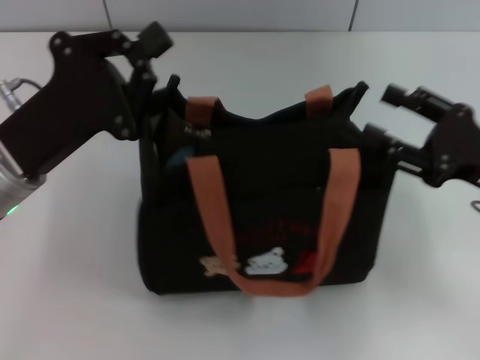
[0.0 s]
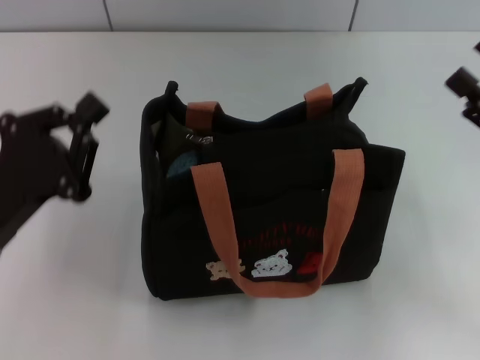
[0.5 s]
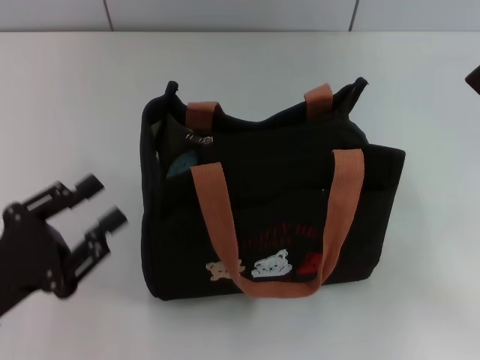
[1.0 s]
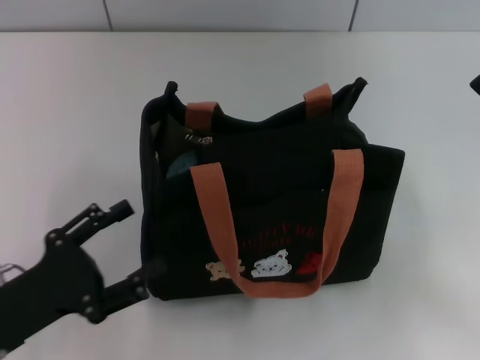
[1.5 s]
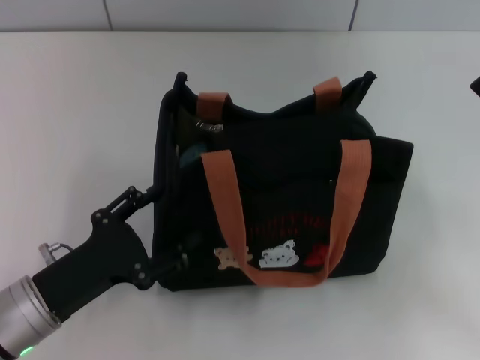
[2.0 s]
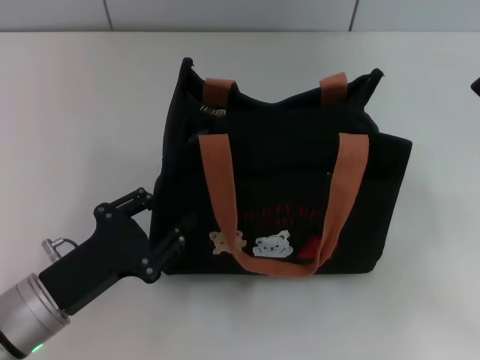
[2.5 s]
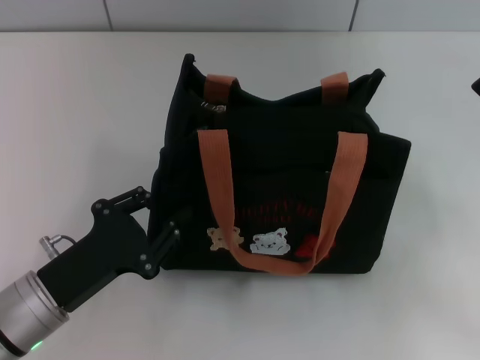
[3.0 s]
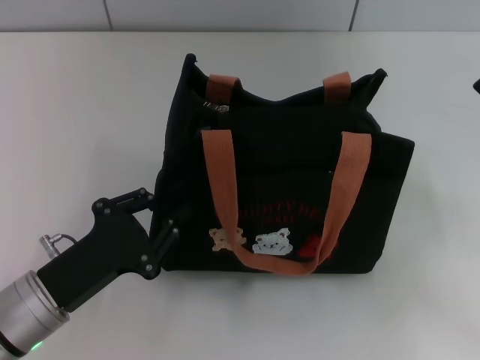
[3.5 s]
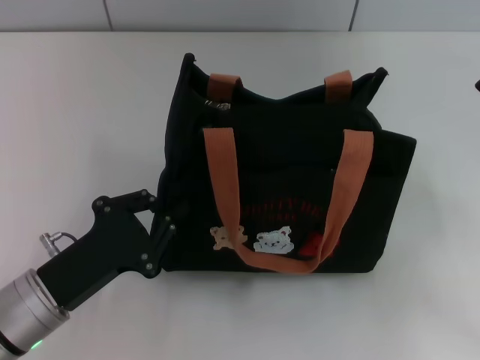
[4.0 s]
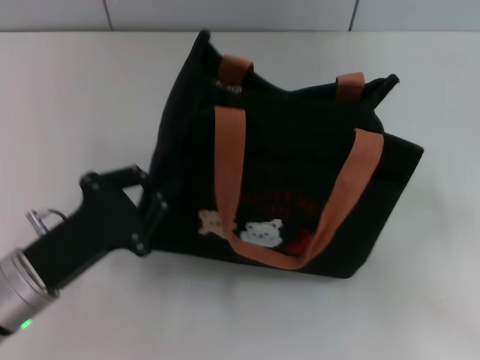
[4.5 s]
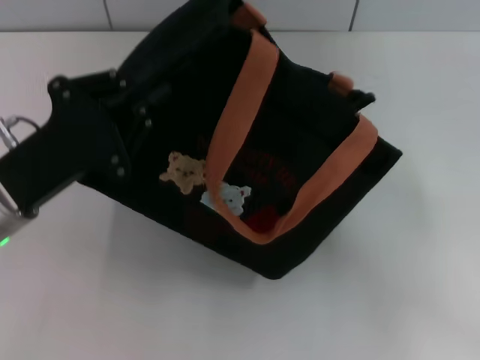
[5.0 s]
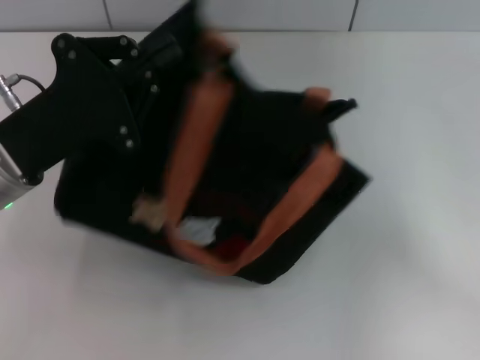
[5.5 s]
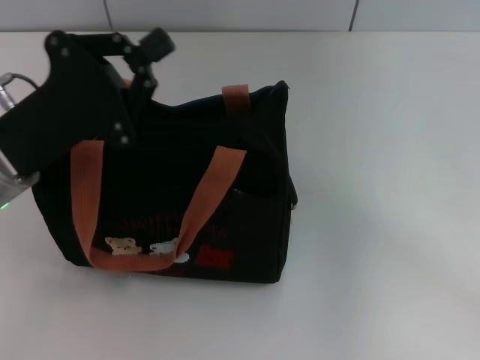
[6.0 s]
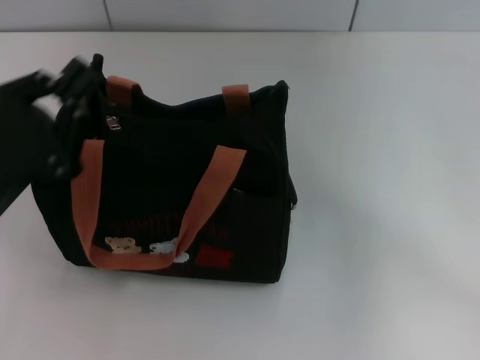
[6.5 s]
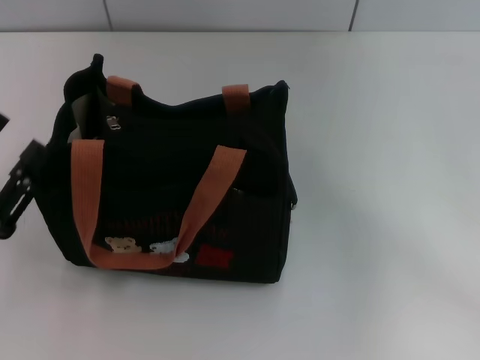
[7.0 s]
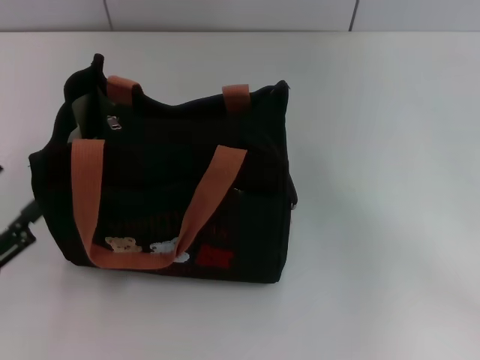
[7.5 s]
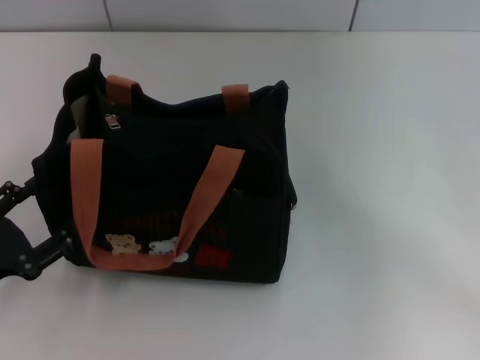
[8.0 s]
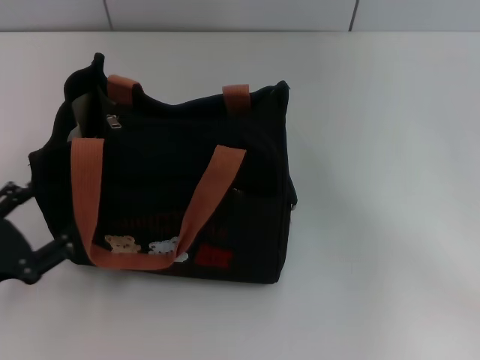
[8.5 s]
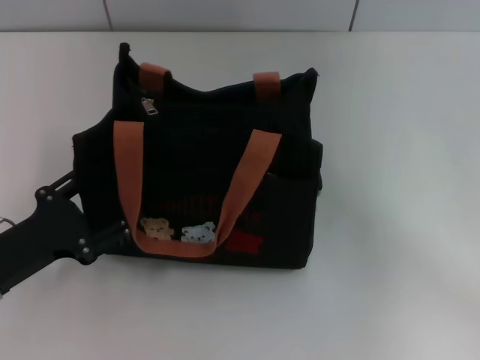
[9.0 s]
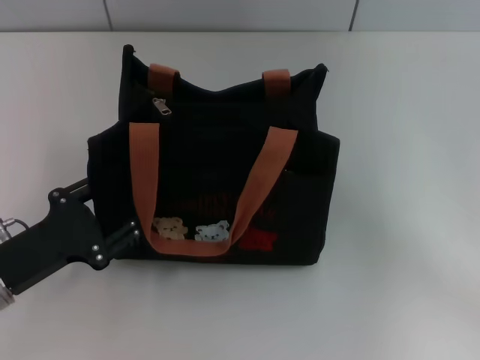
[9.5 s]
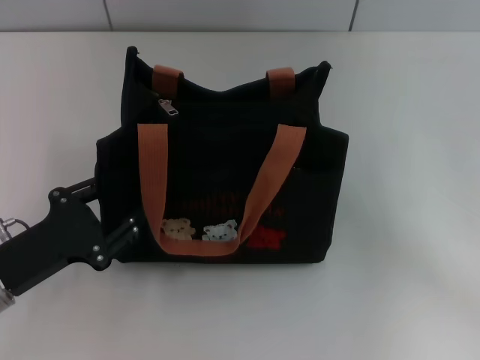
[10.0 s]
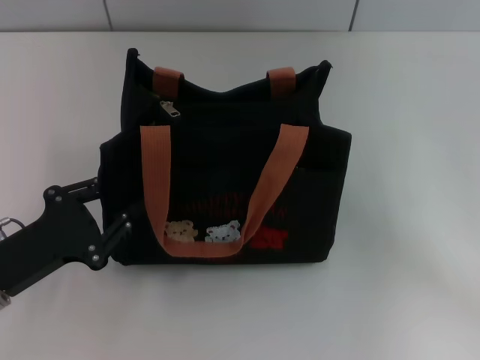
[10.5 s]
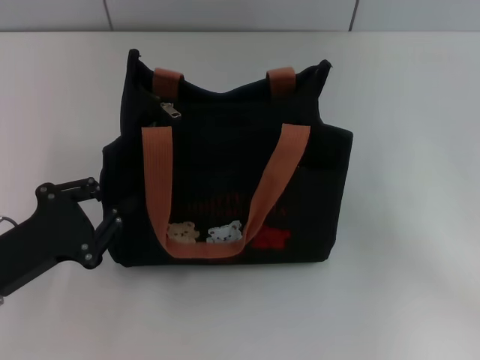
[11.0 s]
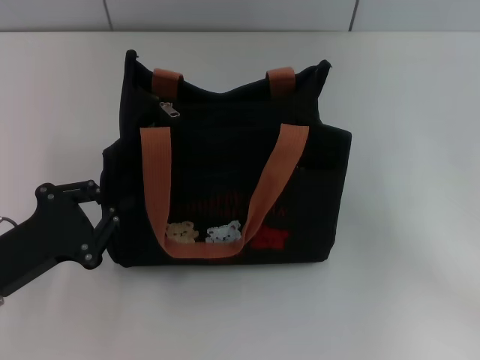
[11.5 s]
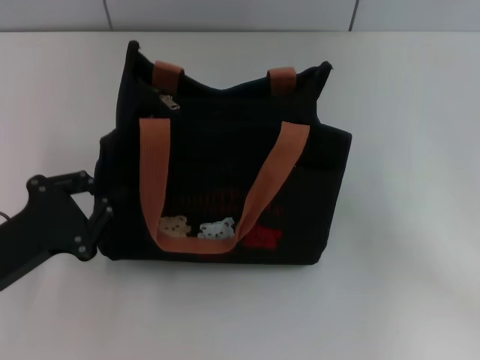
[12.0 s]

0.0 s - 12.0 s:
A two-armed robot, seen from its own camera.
0.0 s - 2.0 s: The left gripper is displaced downward and backward by approximately 15 cm, and opens its fingers; the right gripper shifts by roughly 5 cm.
2.0 s - 4.0 s: The left gripper closes up.
4.0 s - 6.0 s: The left gripper is displaced upward and forward by approximately 15 cm; the right gripper moves forward and upward, about 10 cm.
6.0 s - 8.0 s: The left gripper heads backward, to the left and downward, covering some 15 cm, and opens its fingers.
8.0 s - 10.0 s: The left gripper moves some 5 cm, and closes.
10.0 s - 12.0 s: The left gripper closes.

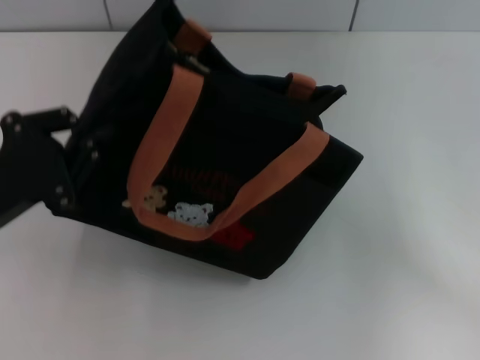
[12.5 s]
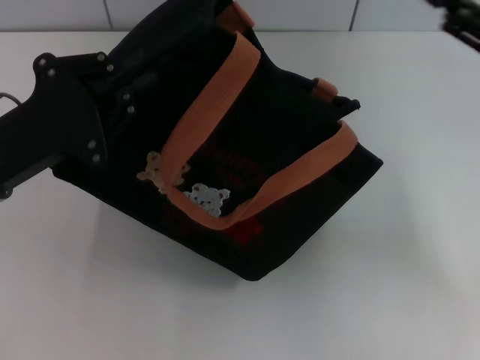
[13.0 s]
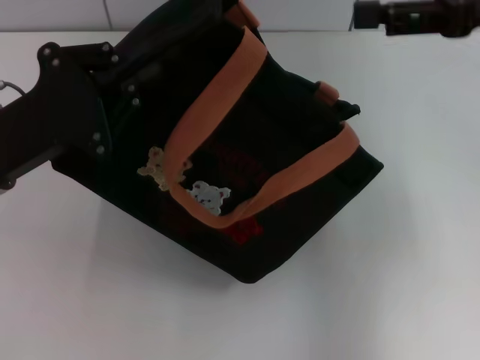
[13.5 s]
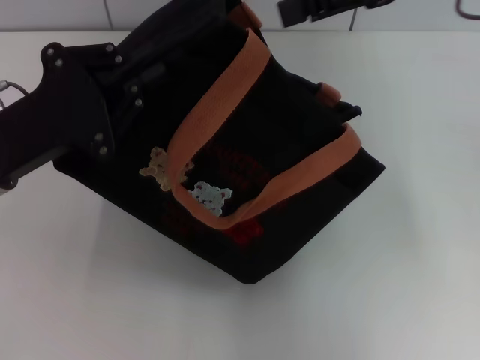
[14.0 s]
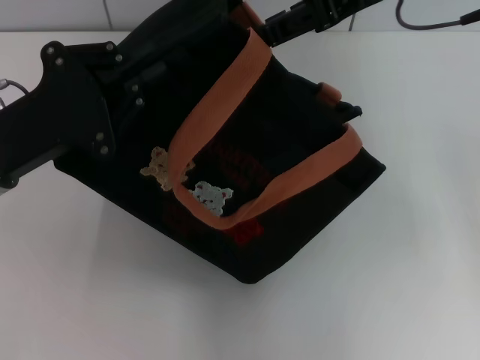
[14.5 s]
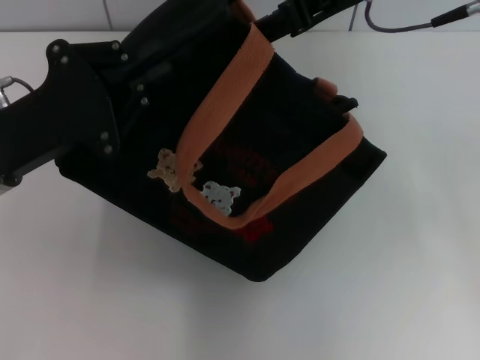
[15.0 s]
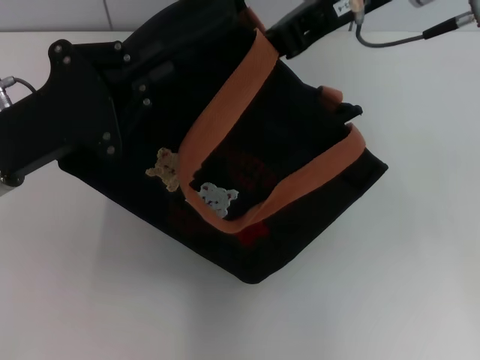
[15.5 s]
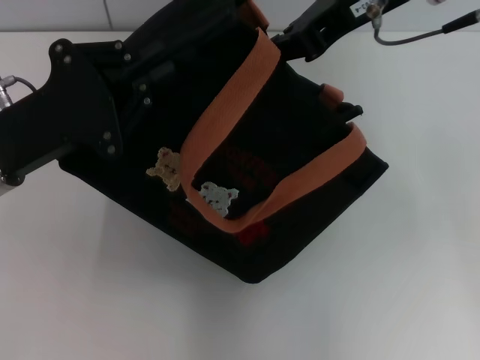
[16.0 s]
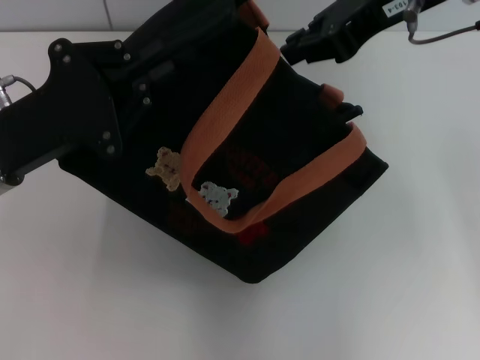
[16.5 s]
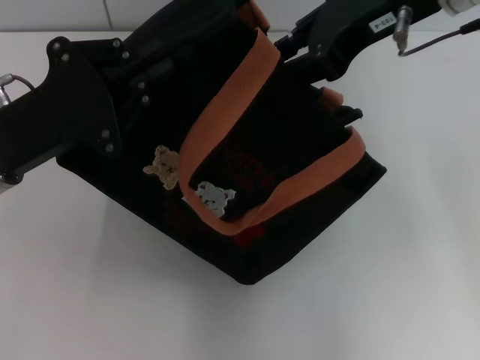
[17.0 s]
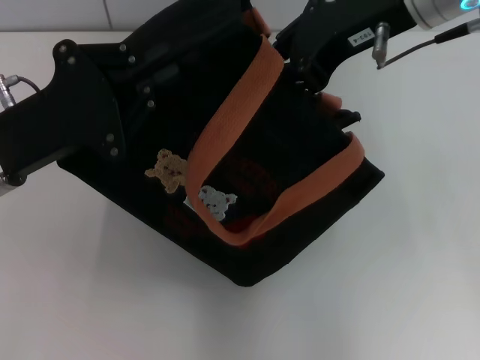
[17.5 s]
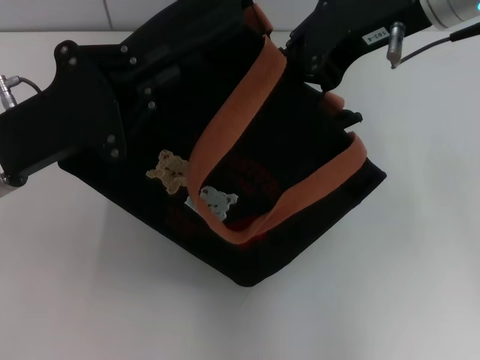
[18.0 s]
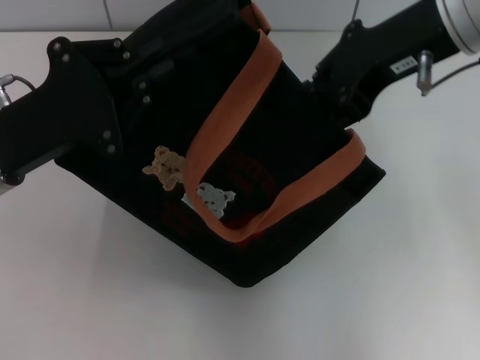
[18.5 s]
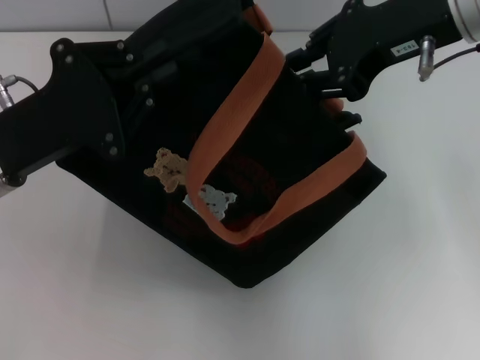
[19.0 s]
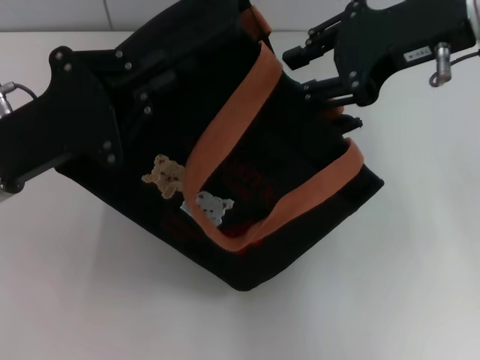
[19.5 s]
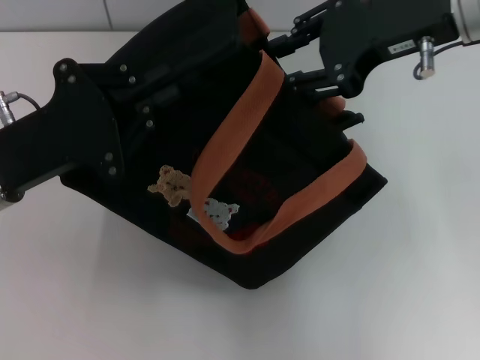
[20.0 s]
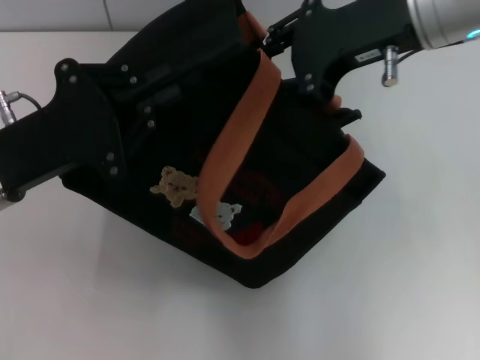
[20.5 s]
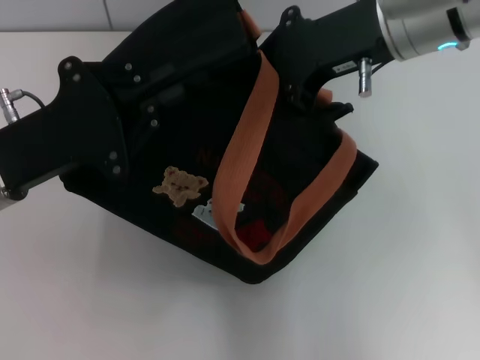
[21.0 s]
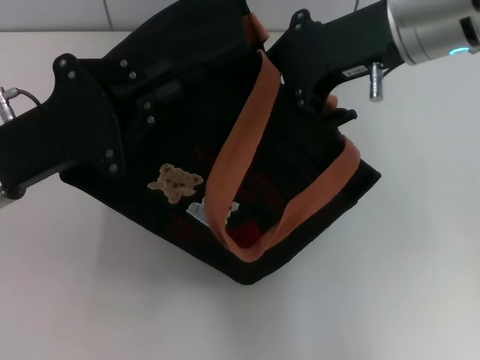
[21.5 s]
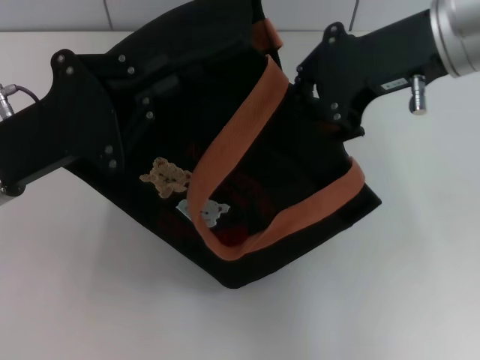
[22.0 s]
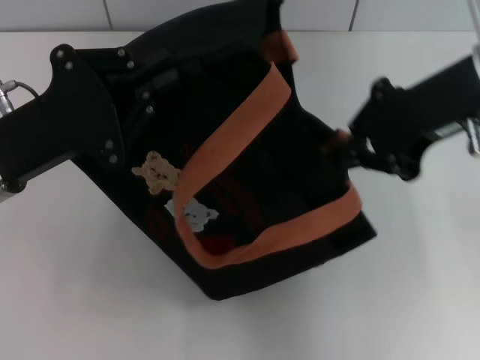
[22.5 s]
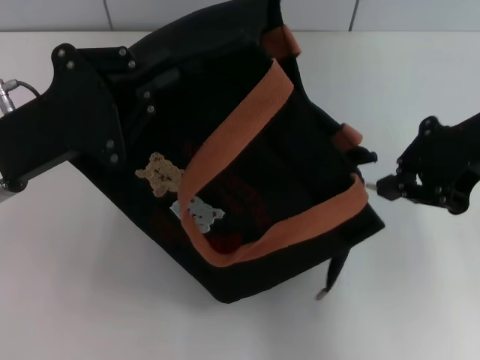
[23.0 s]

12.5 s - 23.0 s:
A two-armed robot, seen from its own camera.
12.5 s - 14.5 s: The right gripper travels upward, to the left and forward by some 25 cm. The left gripper ends up approximately 5 cm from where it was.
14.5 s - 16.5 s: The right gripper closes.
16.5 s - 19.0 s: There are only small adjustments of the grippers.
19.0 s - 21.0 s: The right gripper opens and closes again.
21.0 s - 23.0 s: The right gripper heads to the right, covering some 10 cm.

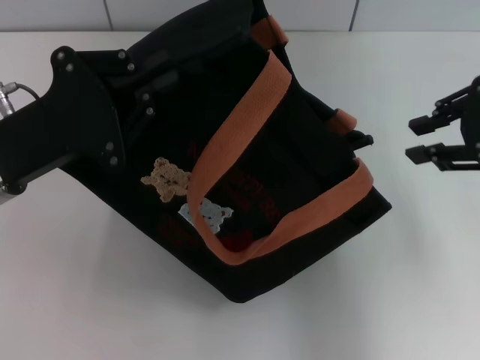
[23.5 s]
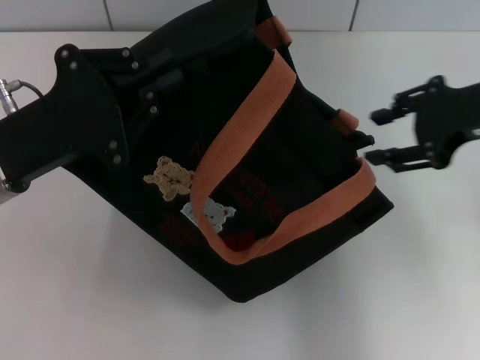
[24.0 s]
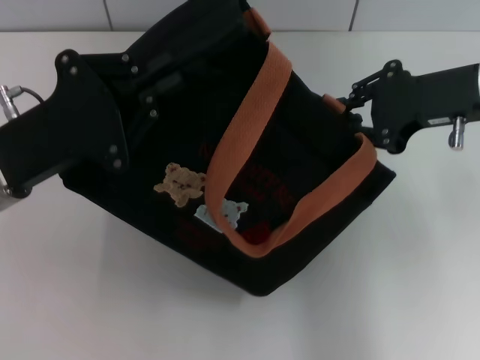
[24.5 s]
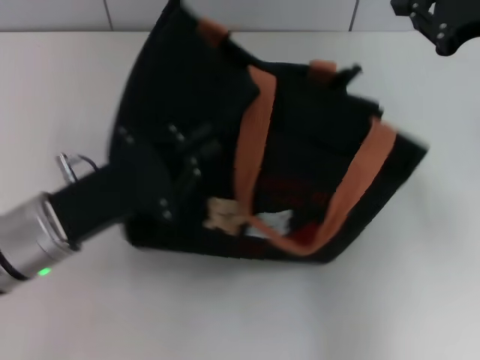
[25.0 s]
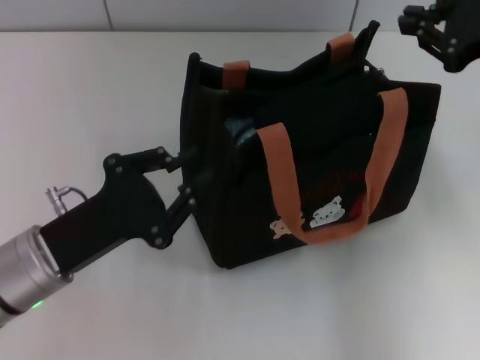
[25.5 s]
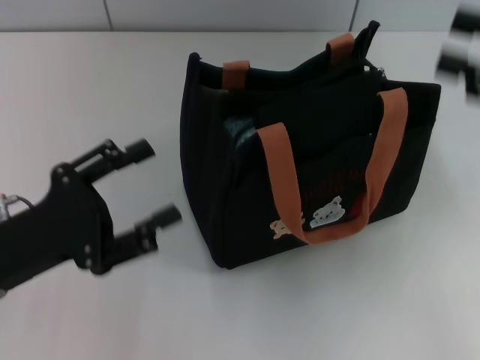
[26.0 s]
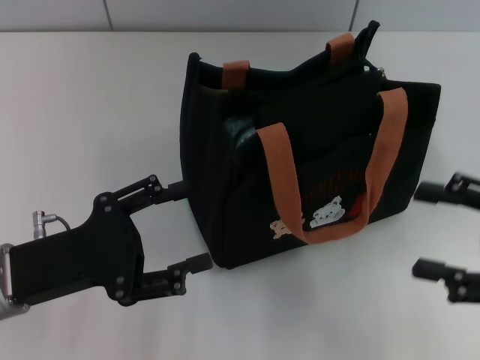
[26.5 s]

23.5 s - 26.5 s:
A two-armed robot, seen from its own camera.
Step, 23.5 s - 25.0 s: Grab the bag with your left hand.
23.5 s - 25.0 s: The left gripper goes some 5 cm downward. Meanwhile the right gripper opens, then closes again.
25.0 s - 26.5 s: The left gripper opens its fingers. The right gripper shifts some 20 cm backward and downward, and opens its fingers.
